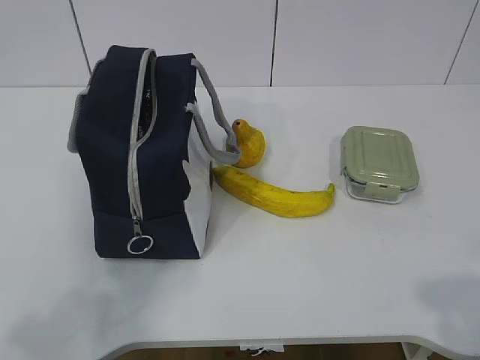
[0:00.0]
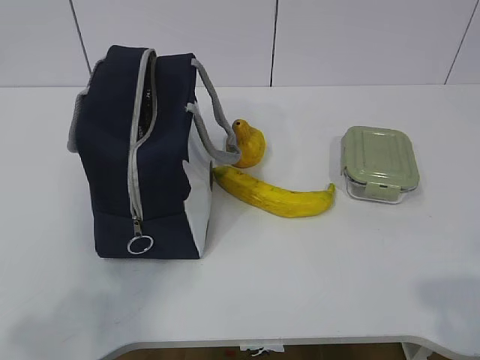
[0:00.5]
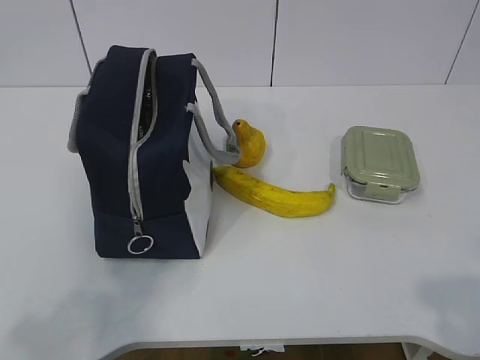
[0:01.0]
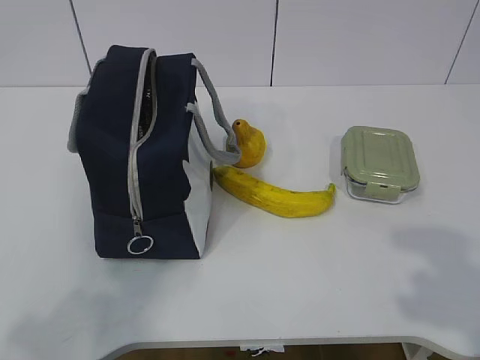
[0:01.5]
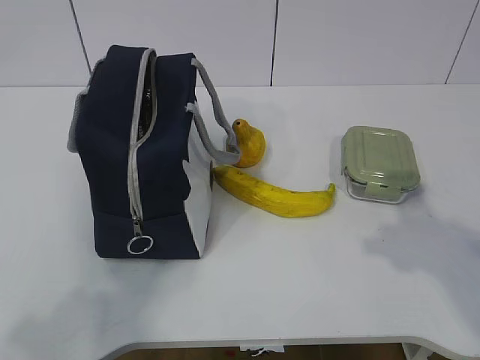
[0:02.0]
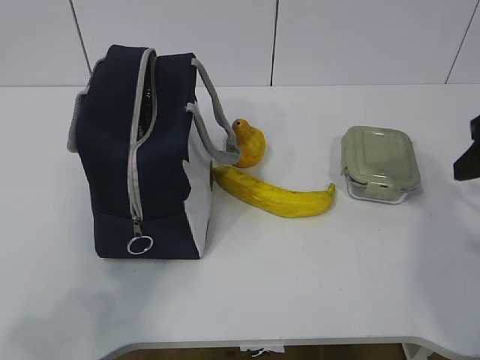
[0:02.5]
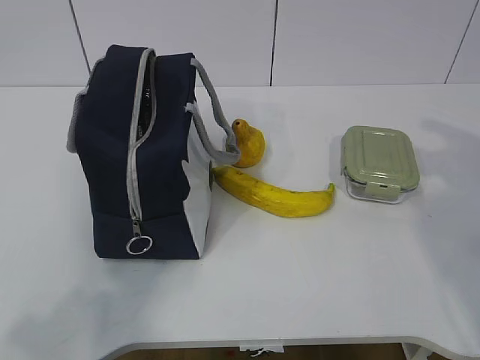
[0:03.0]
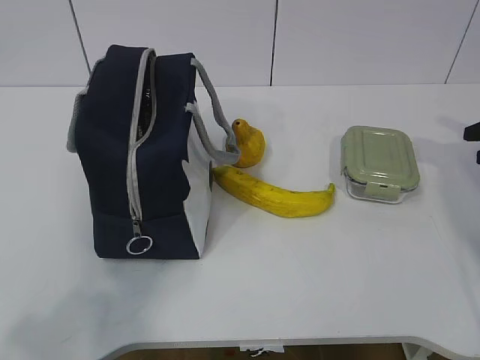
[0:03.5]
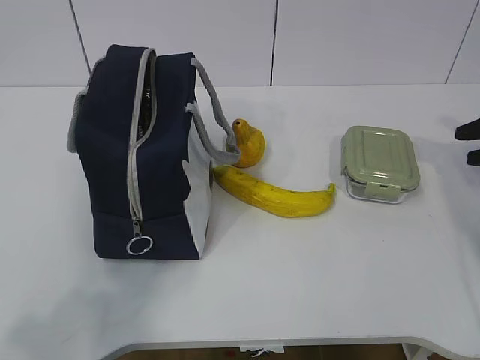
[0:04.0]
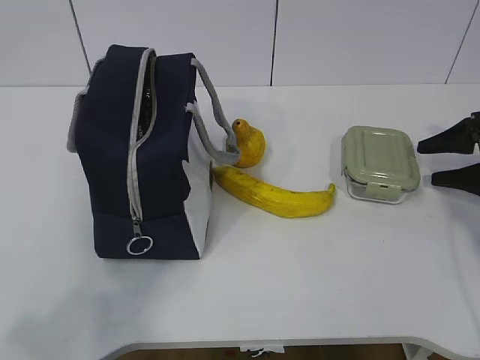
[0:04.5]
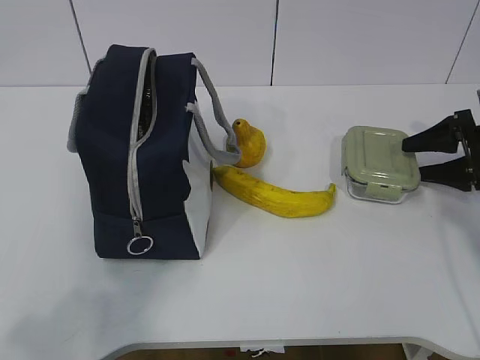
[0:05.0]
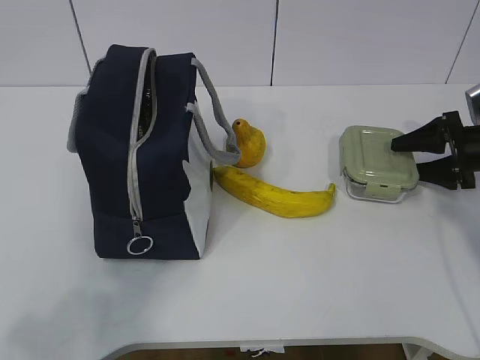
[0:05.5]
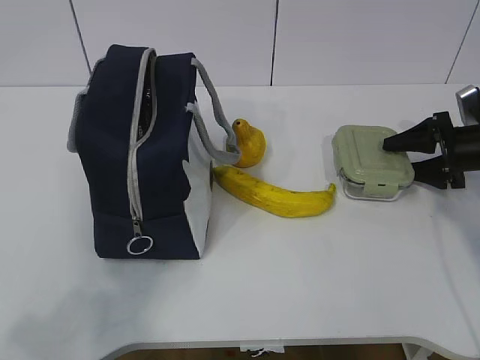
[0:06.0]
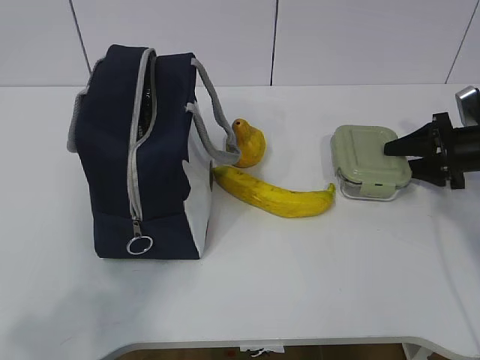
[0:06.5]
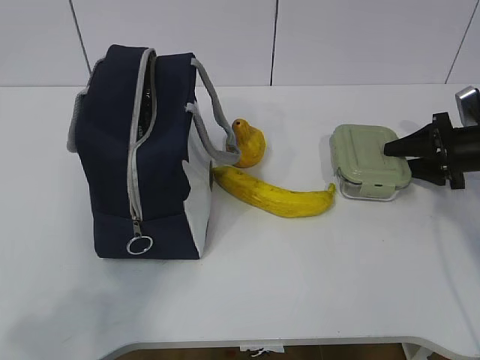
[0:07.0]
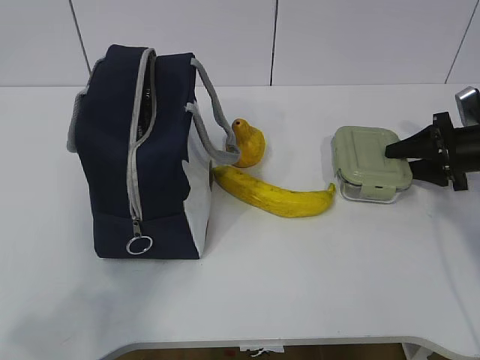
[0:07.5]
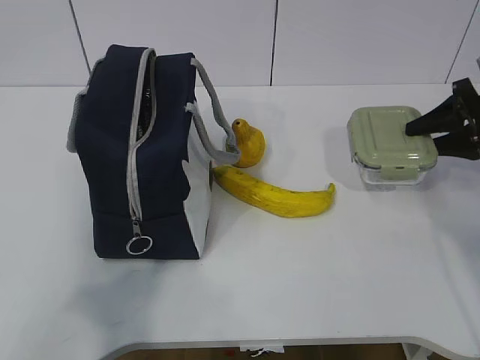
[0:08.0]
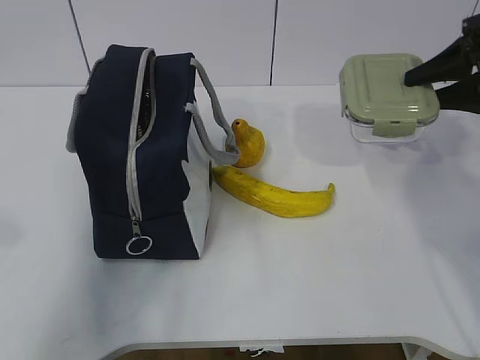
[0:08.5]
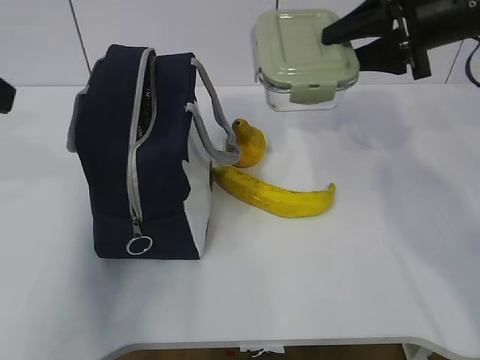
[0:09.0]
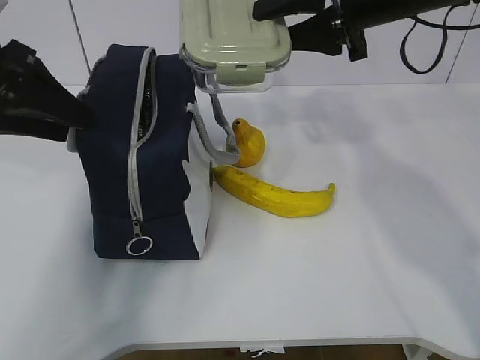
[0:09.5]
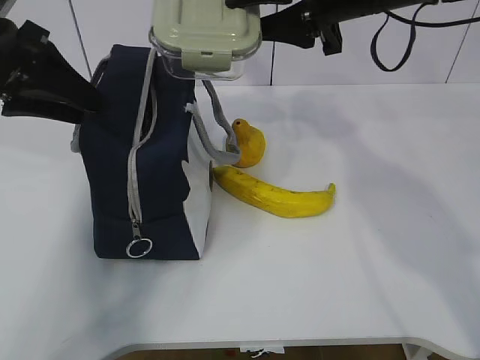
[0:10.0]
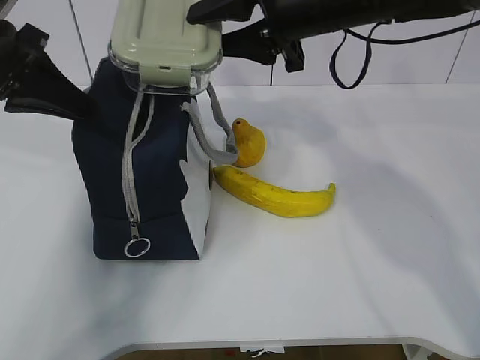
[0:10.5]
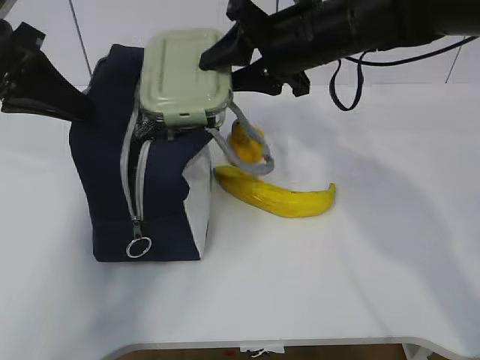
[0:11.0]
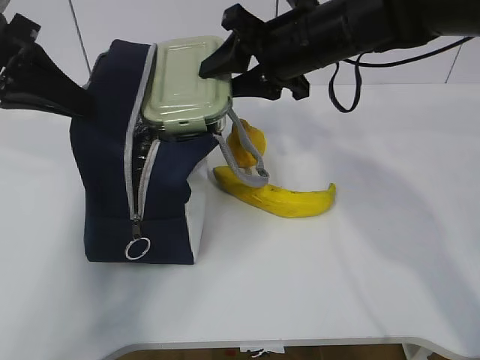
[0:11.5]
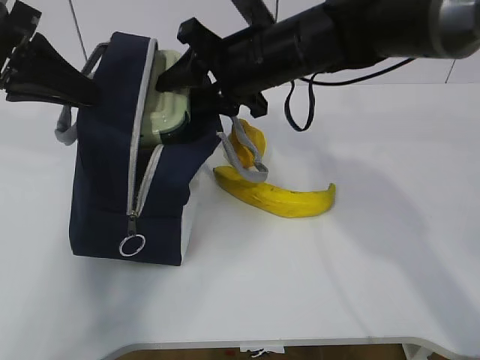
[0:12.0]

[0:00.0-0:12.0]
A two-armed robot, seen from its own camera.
Step, 0:00.0 to 0:06.0: Grab the lunch box with your right hand.
Step, 0:06.5 to 0:08.5: Grab the lunch bag with your left hand.
Step, 0:09.0 to 0:11.0: Place it into the bag with your right hand.
0:02.0 to 0:04.0: The right gripper goes approximately 30 cm forward, to the right and downward.
0:04.0 to 0:06.0: The right gripper heads downward and to the left, covering about 10 cm.
0:06.0 to 0:08.0: The right gripper goes roughly 5 cm upward, and closes.
0:08.0 to 0:10.0: The left gripper heads forward, covering approximately 30 cm, while the right gripper goes about 30 cm to the left and upward.
0:10.0 to 0:12.0: The right gripper travels to the left and downward by about 10 cm; the left gripper closes up.

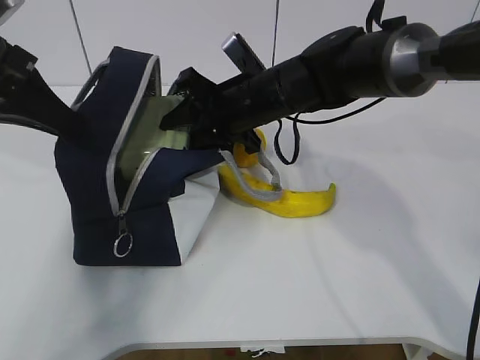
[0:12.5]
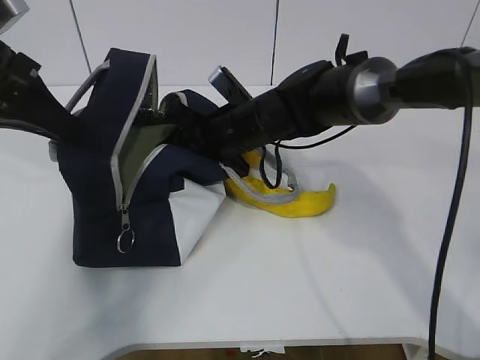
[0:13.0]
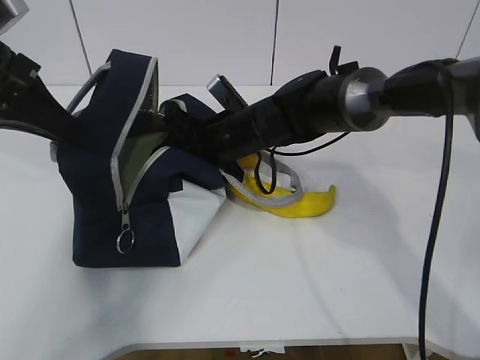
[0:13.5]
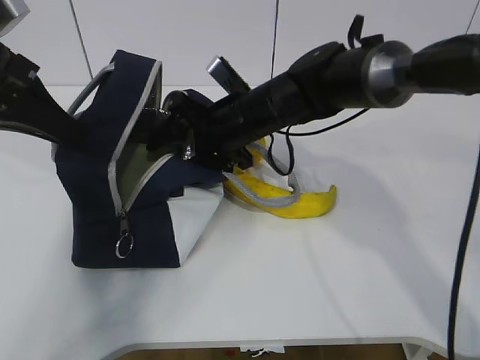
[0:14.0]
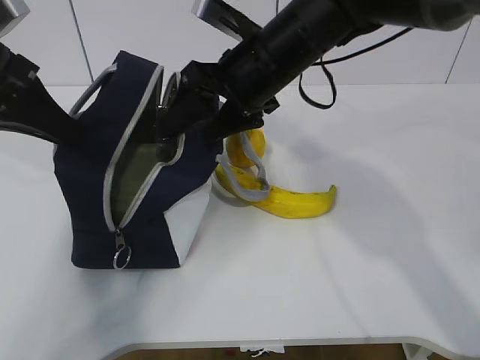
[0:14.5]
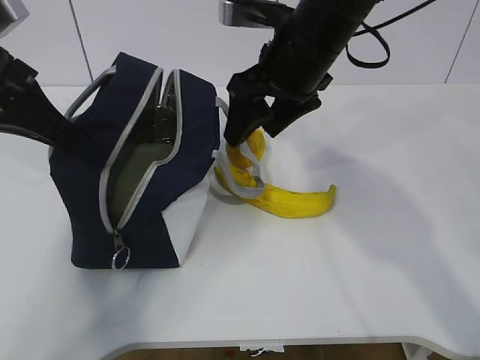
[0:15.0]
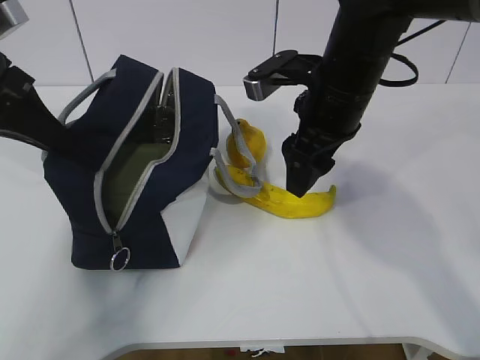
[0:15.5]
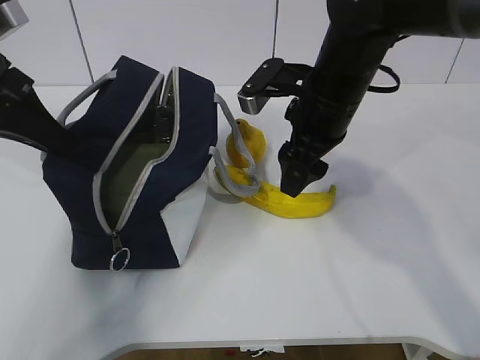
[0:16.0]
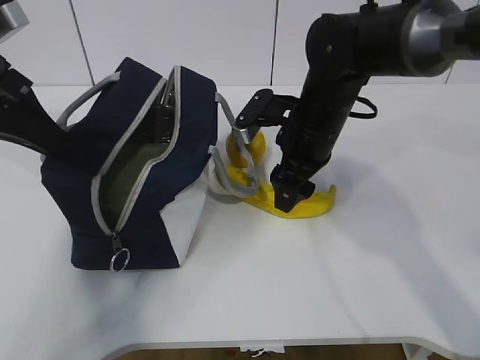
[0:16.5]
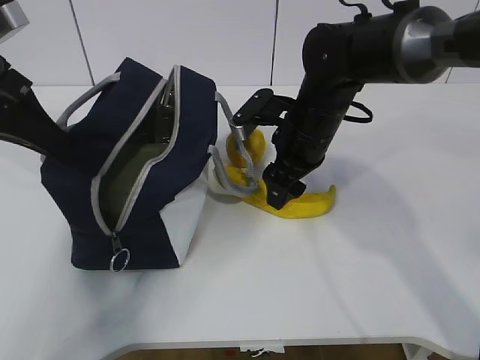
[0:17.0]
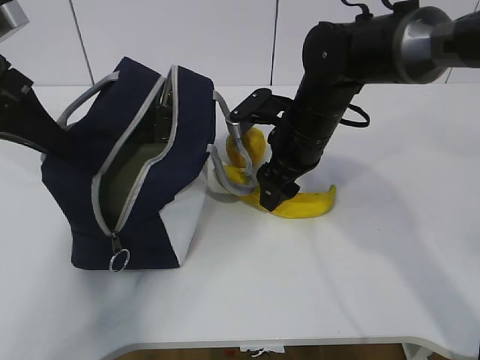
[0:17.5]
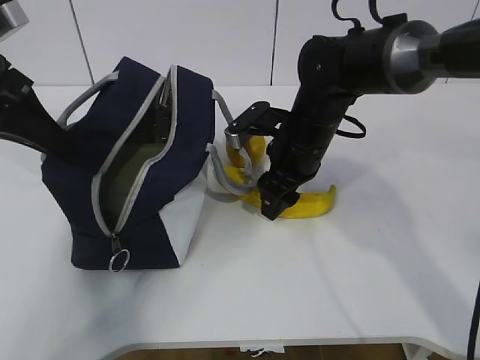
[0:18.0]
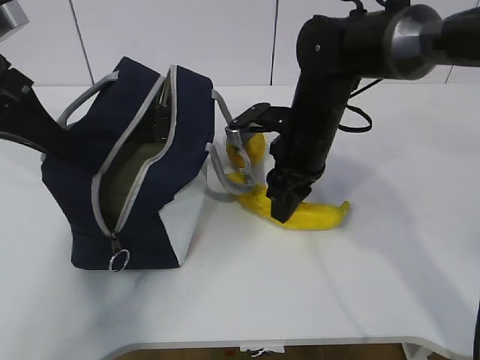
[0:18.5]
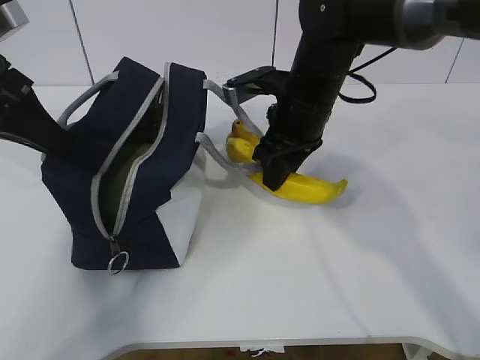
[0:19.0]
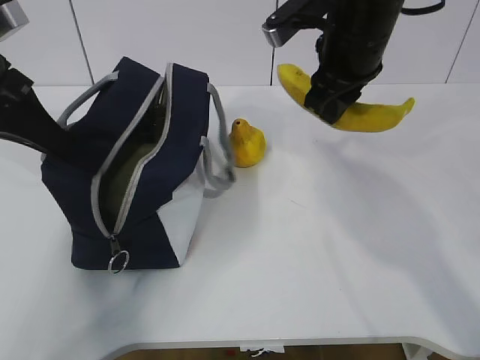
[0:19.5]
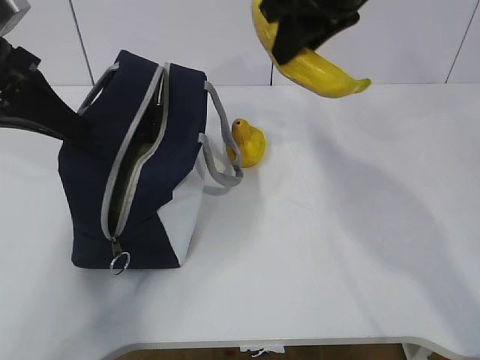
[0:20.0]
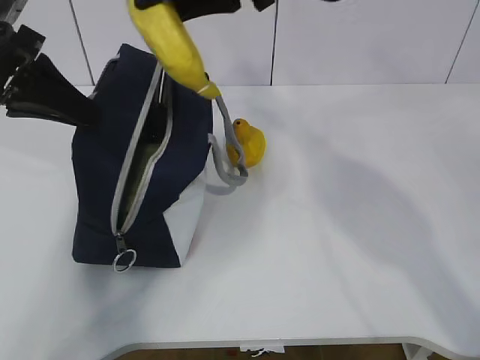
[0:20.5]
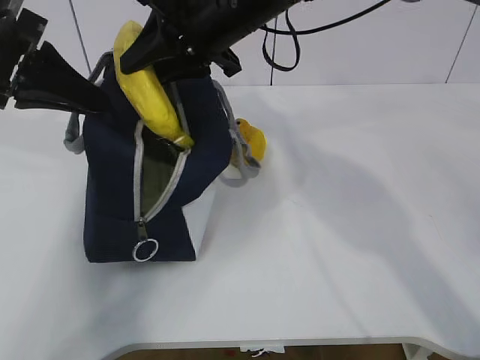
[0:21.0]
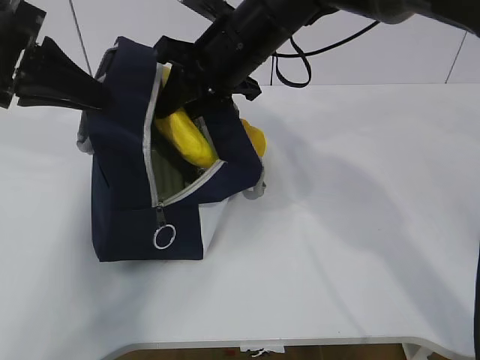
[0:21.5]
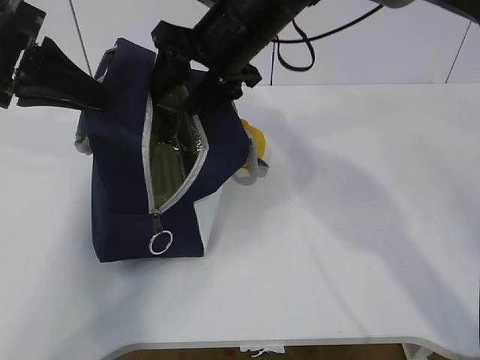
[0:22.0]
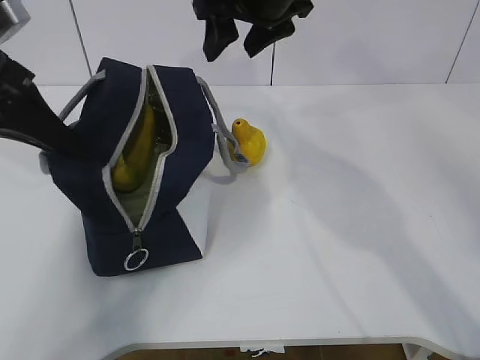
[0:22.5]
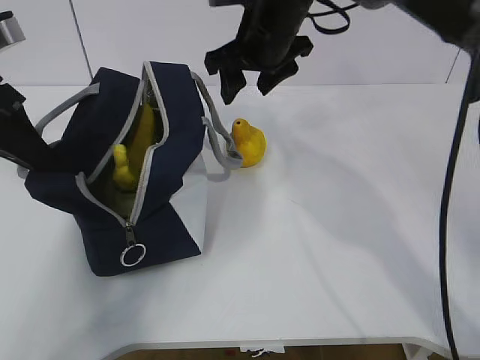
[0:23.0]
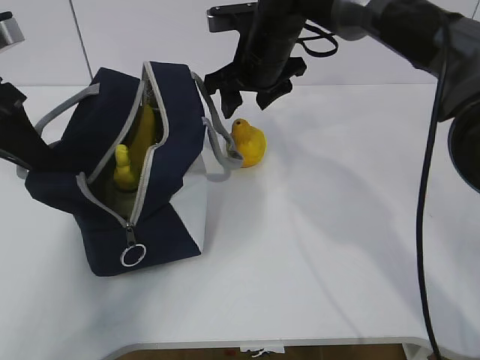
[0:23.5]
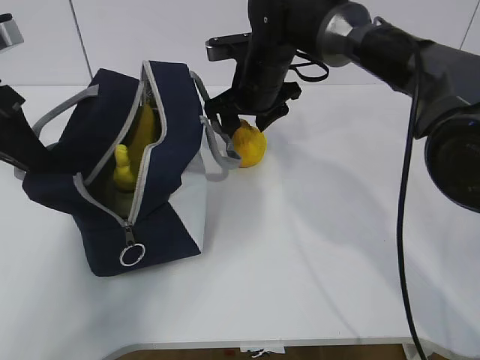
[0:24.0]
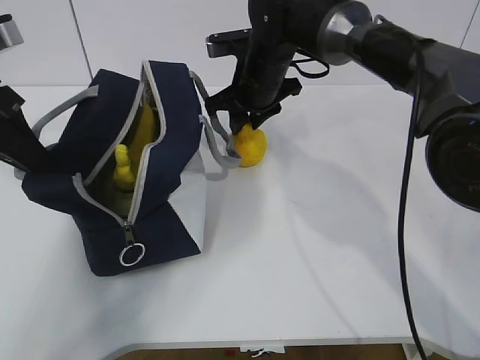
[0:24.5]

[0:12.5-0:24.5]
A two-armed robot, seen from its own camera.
Step, 0:12.5 to 0:15.0: Grab the banana with your right hand.
Step, 0:15.5 to 0:18.0: Place it into the bag with your right hand.
Step, 0:18.5 to 0:20.5: Grab the pear with your right hand.
Step, 0:21.0 to 0:22.5: Secure the lunch bag with your left hand.
Step, 0:23.0 to 0:24.0: Grab the lunch bag with your right hand.
0:12.5 to 0:14.5: The right gripper travels upward by about 5 cm, and opens.
0:14.5 to 0:16.5: The right gripper moves downward and to the right, about 10 cm.
0:16.5 to 0:18.5: The right gripper closes its fingers.
0:18.5 to 0:20.5: The right gripper goes approximately 20 cm upward.
0:20.5 to 0:22.5: The right gripper moves forward, roughly 5 cm, and opens up.
0:22.5 to 0:24.5: The right gripper shifts some 15 cm downward, and closes its fingers.

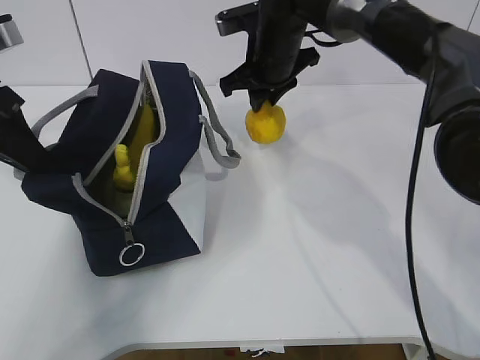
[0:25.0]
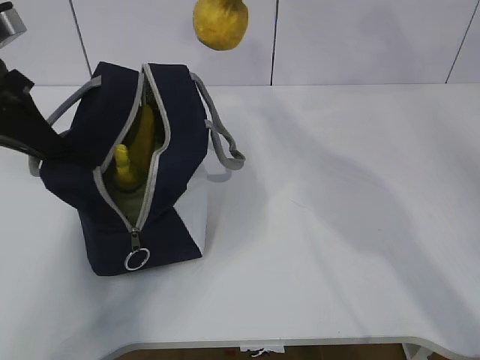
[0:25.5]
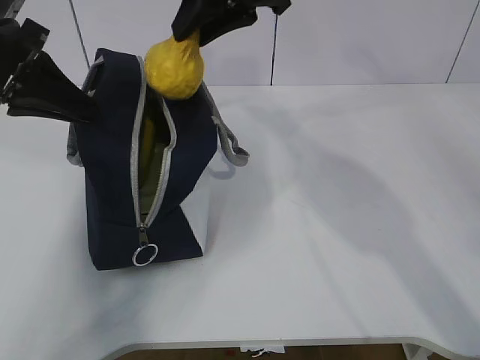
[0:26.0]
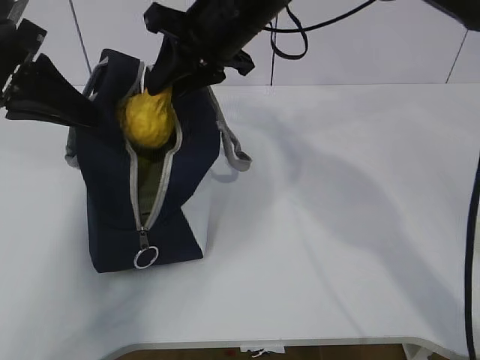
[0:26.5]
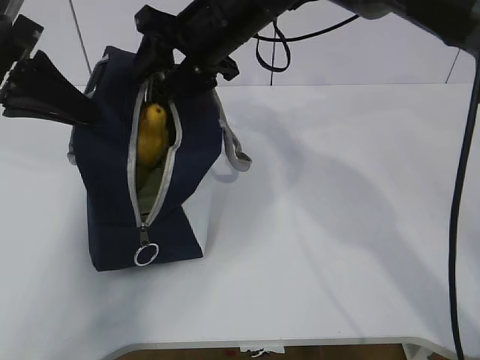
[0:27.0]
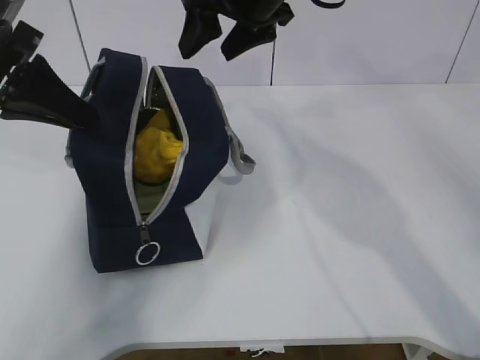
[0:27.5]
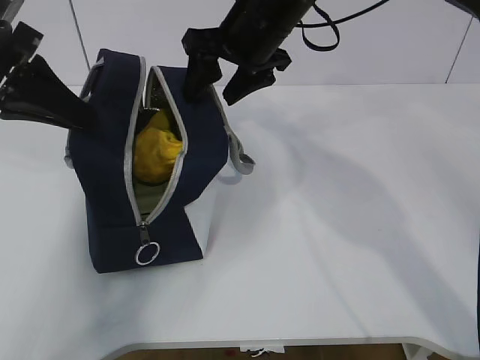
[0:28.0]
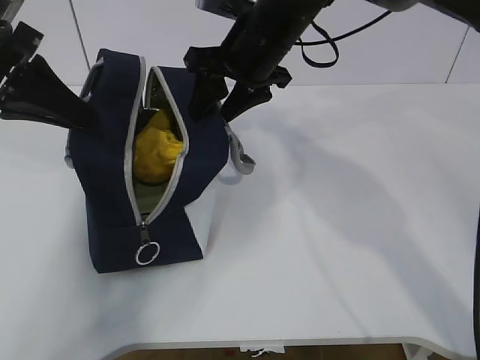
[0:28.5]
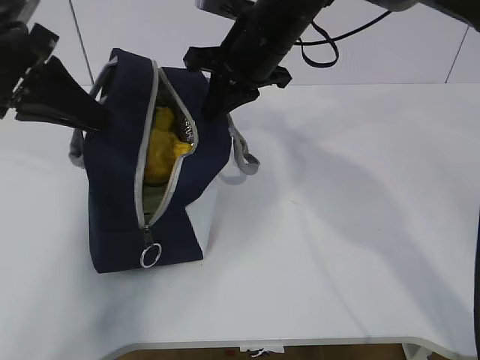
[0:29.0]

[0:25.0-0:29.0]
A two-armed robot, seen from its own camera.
Step, 0:25.0 to 0:26.0: Move the lunch bag to the right.
0:25.0 to 0:27.0: The right gripper is displaced to the left by roughly 5 cm, moves about 15 cm upward and comes back, and opens its fingers.
0:27.0 to 0:29.0: The right gripper closes.
